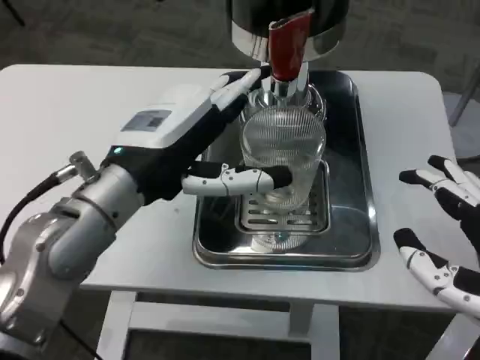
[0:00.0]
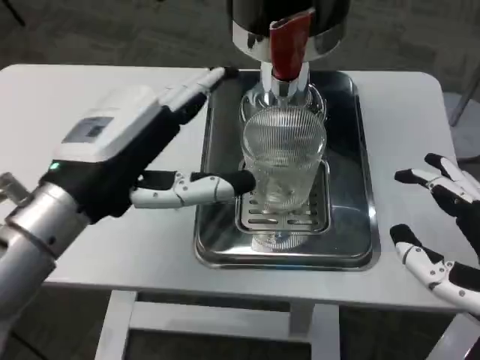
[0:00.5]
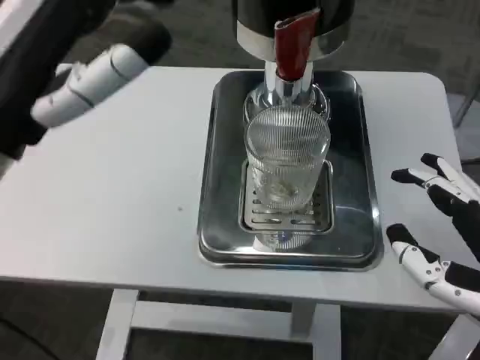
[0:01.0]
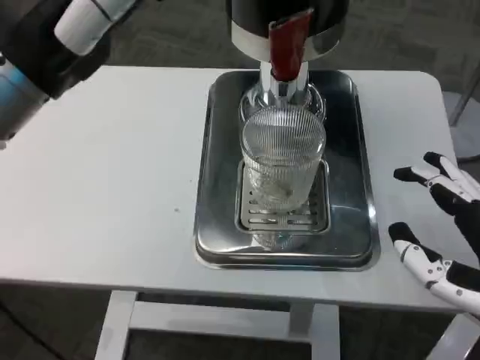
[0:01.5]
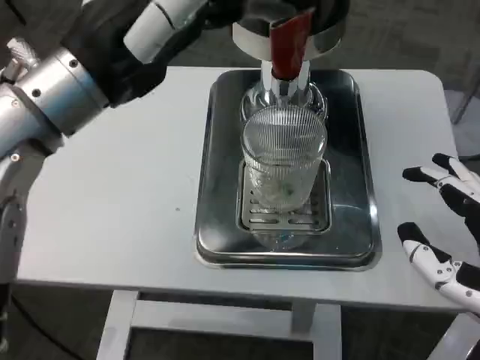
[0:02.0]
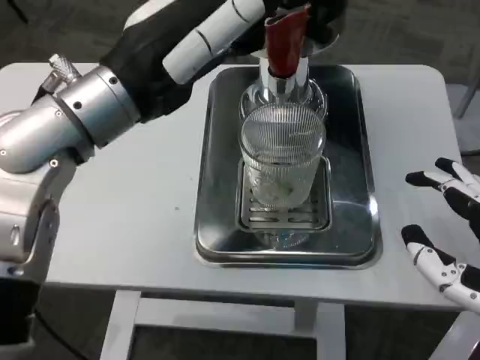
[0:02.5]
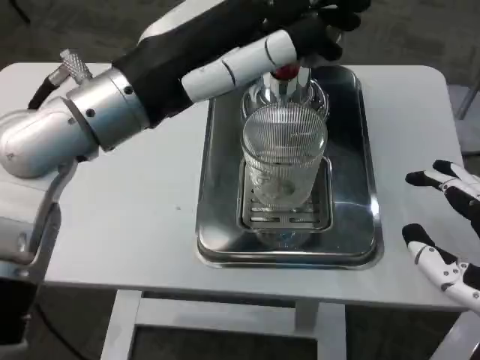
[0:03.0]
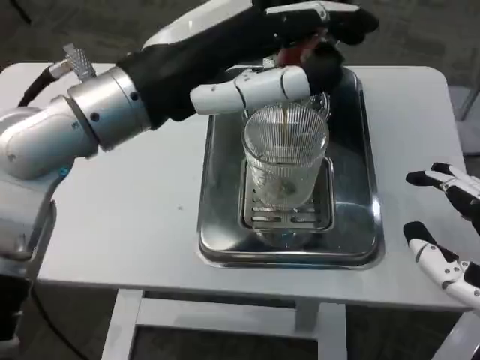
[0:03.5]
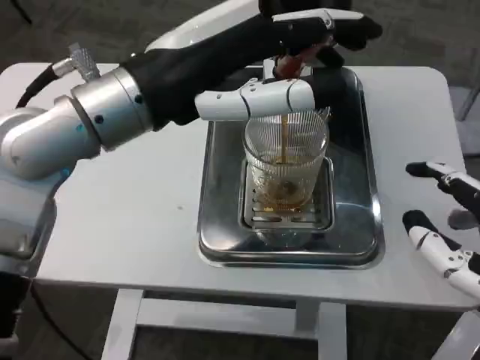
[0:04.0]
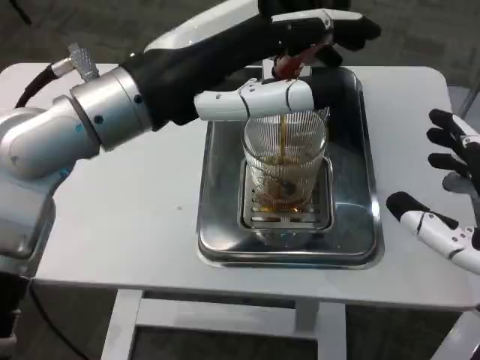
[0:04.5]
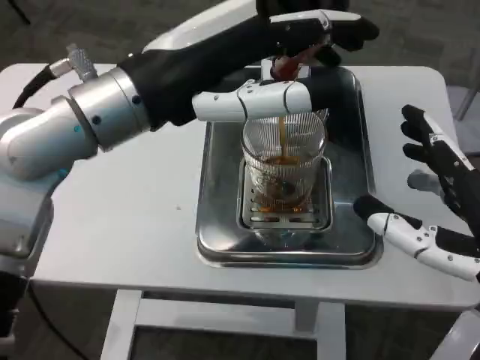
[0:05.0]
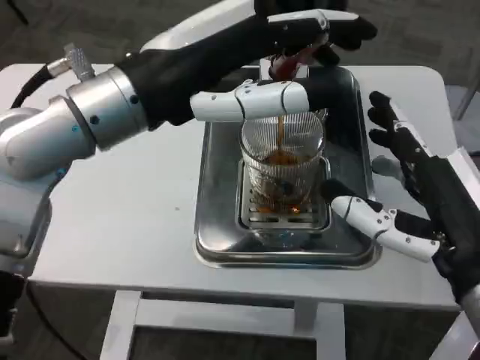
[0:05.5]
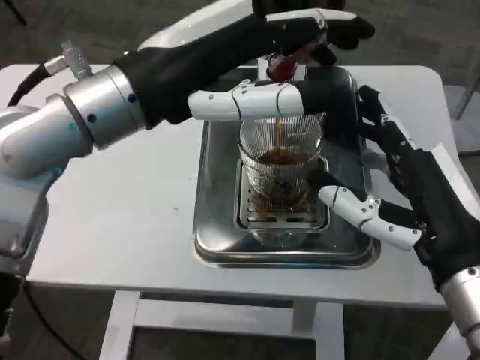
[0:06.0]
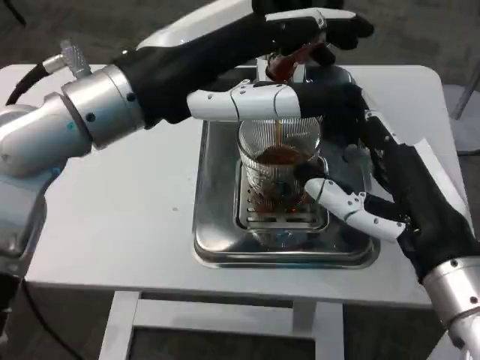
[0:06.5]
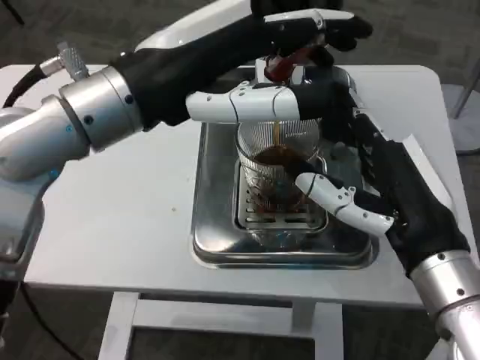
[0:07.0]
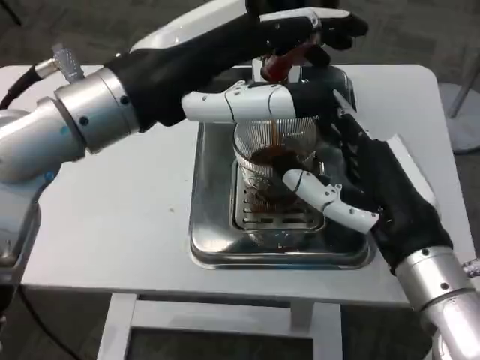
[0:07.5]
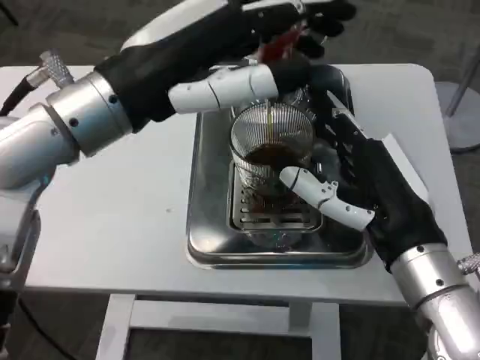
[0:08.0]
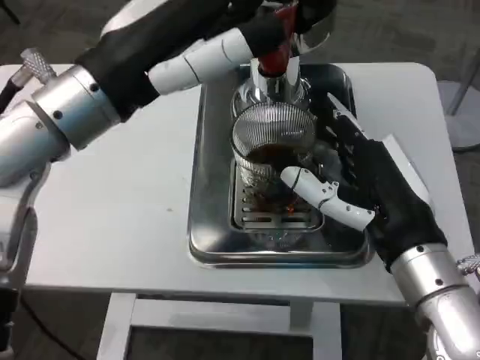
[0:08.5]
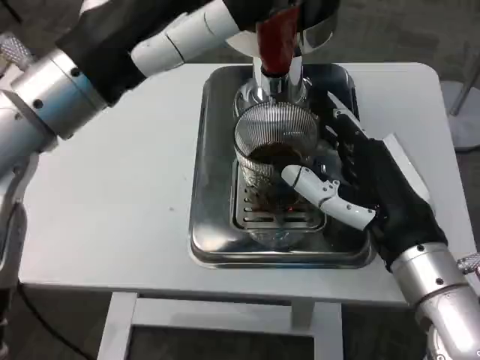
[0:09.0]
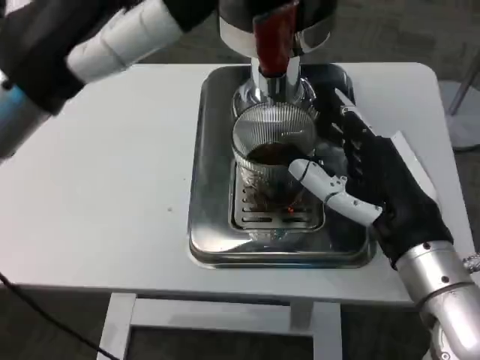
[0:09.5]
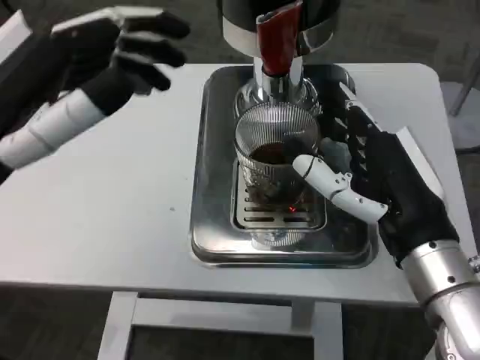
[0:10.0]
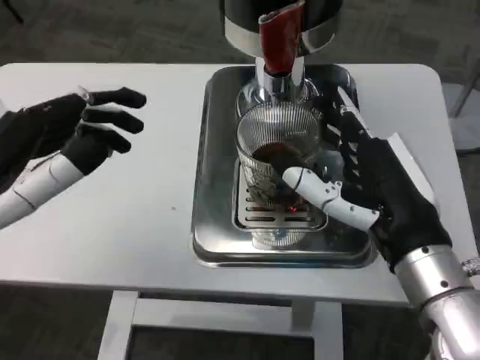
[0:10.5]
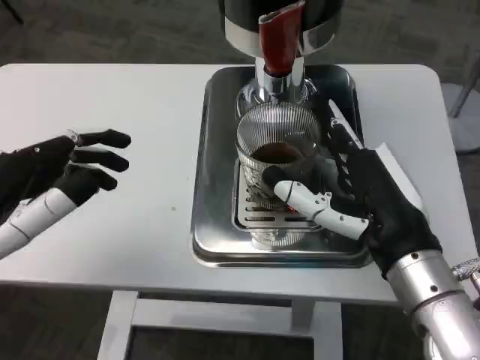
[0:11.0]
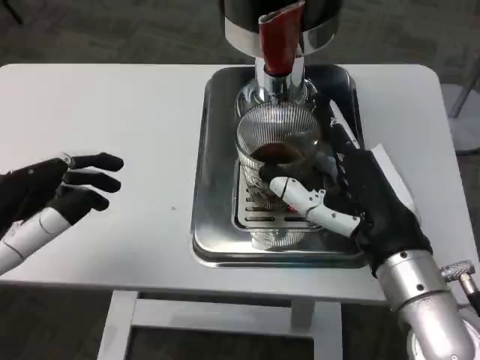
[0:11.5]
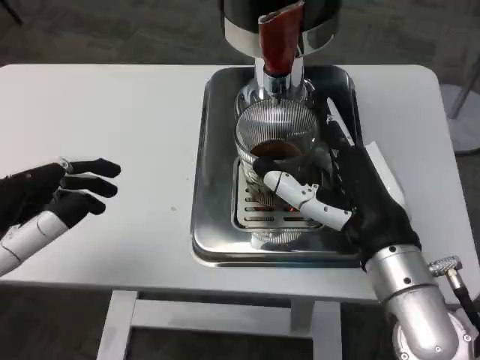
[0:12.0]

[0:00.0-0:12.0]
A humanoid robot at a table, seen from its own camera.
Task of the whole recording: Grasp the cup under the faucet to collect the drink, then remove the cup.
0:00.0 to 0:02.0: The left hand travels upward by roughly 10 cm.
0:04.0 to 0:06.0: The right hand heads forward, covering roughly 5 cm.
0:08.0 to 0:10.0: The left hand goes some 10 cm to the left and backward.
0:10.0 to 0:12.0: The left hand goes some 5 cm downward.

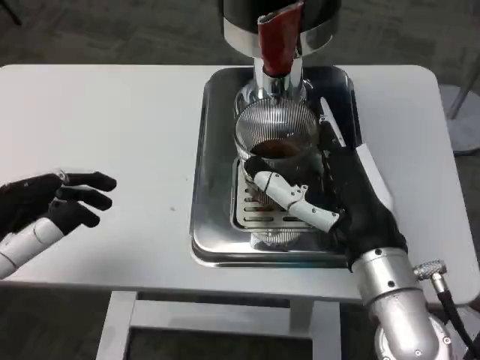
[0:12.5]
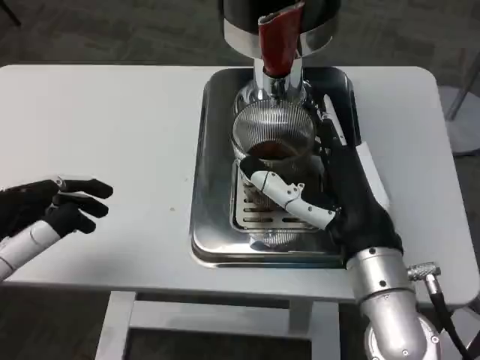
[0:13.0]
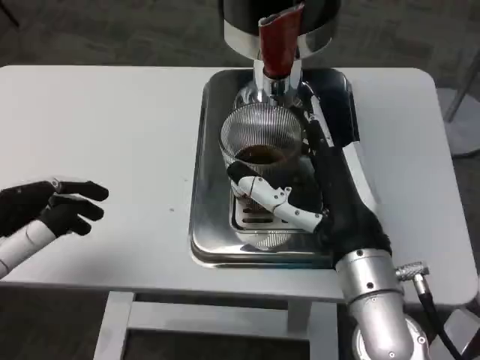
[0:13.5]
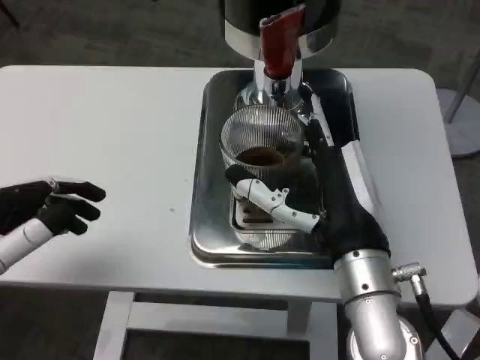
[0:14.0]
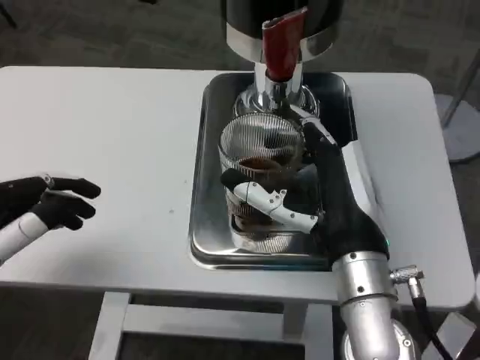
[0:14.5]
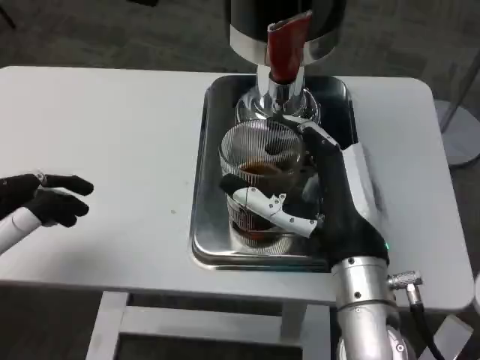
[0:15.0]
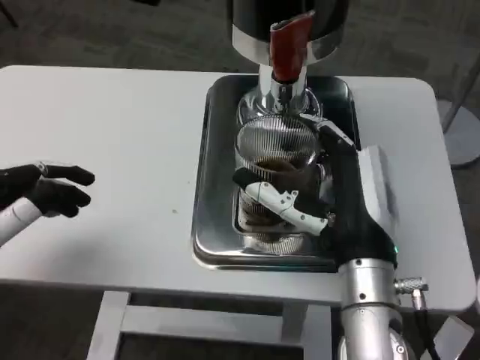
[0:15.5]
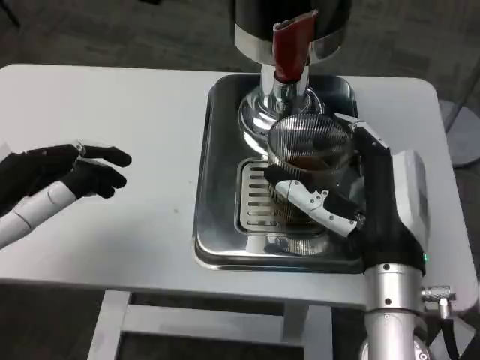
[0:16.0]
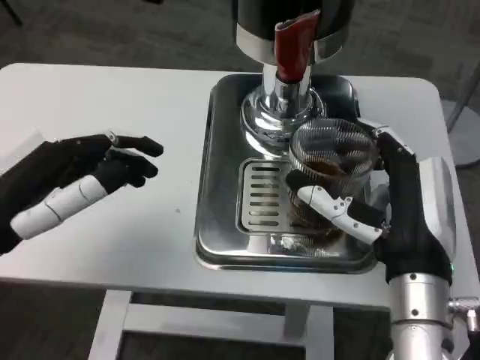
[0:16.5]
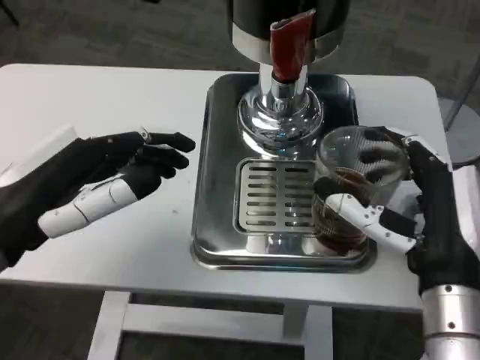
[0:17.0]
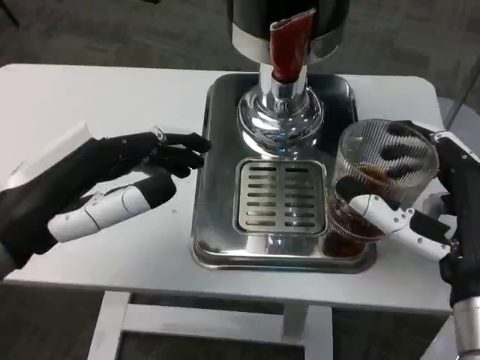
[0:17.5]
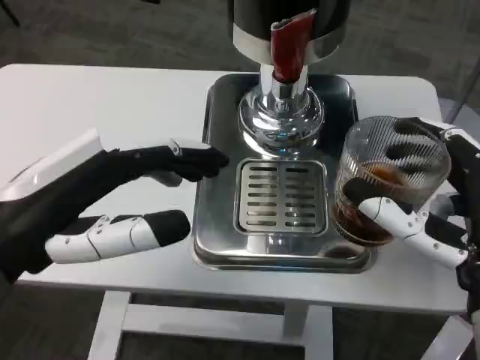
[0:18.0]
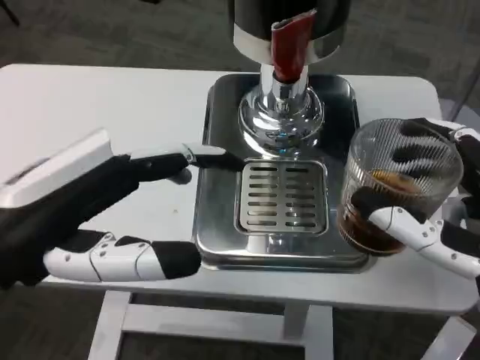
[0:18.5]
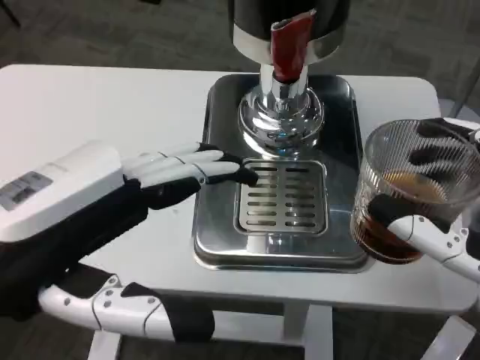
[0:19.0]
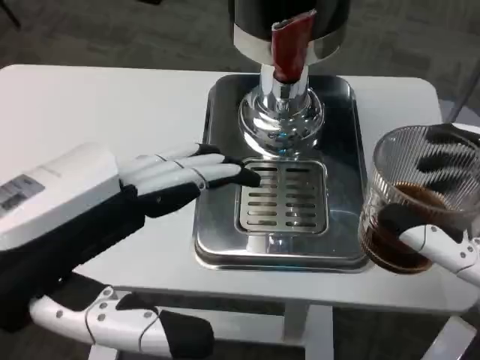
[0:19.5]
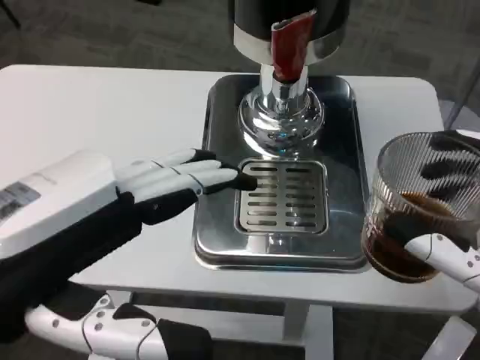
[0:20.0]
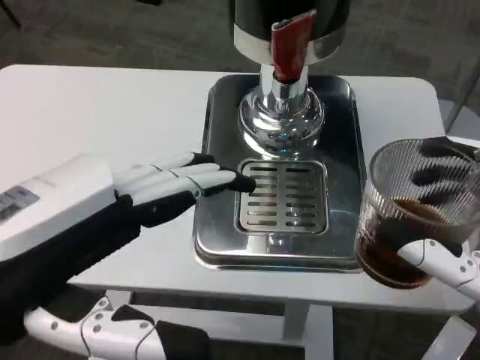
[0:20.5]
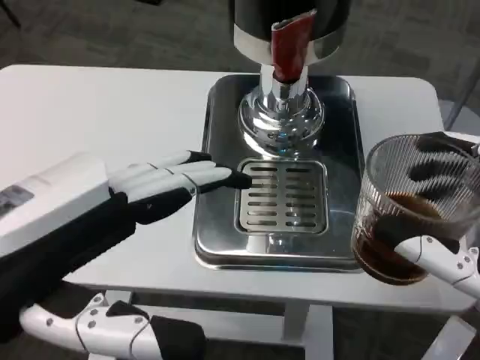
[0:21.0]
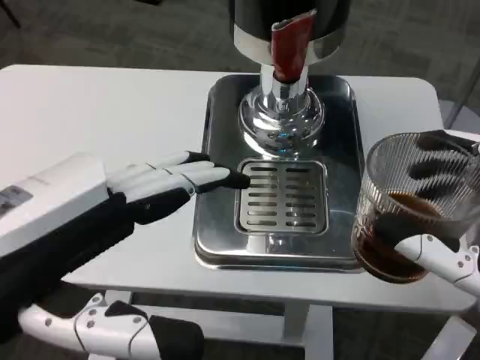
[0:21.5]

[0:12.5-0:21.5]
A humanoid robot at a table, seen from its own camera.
Task of the whole recording: Grasp the cup under the faucet to collect the drink, then remove the cup.
0:14.5 to 0:17.0: The left hand ends up some 5 cm from where it was. The right hand moves to the right, some 5 cm.
0:17.0 to 0:19.5: Both hands move backward, roughly 10 cm.
0:19.5 to 0:21.5: Neither hand changes place.

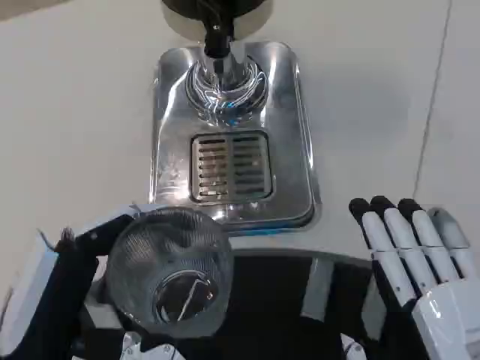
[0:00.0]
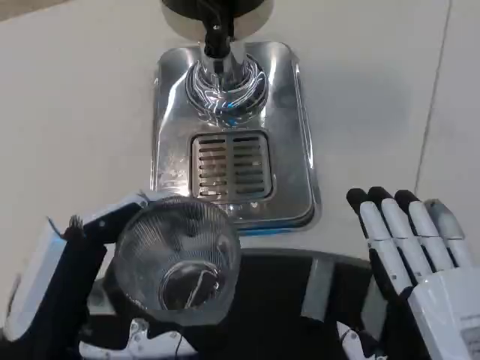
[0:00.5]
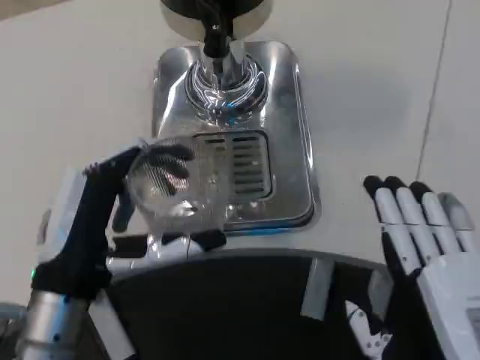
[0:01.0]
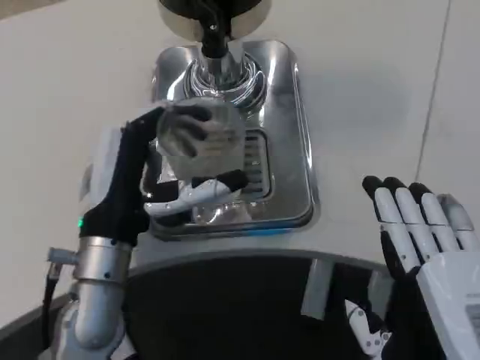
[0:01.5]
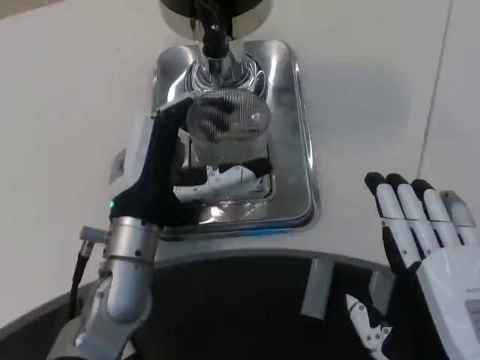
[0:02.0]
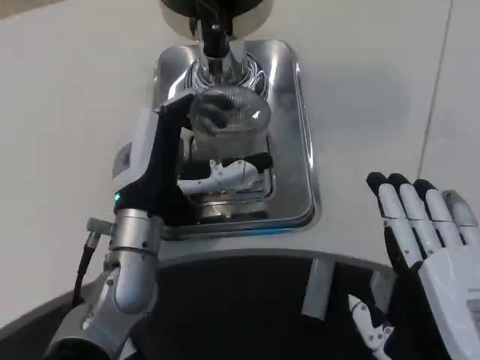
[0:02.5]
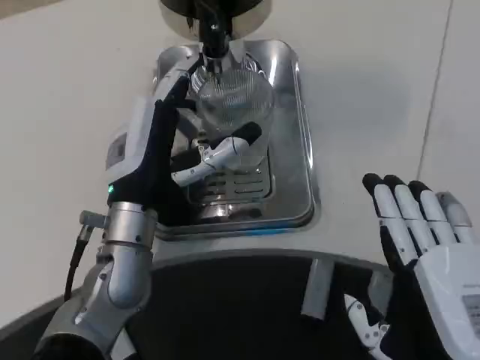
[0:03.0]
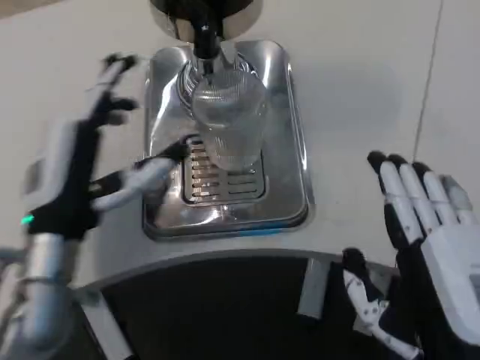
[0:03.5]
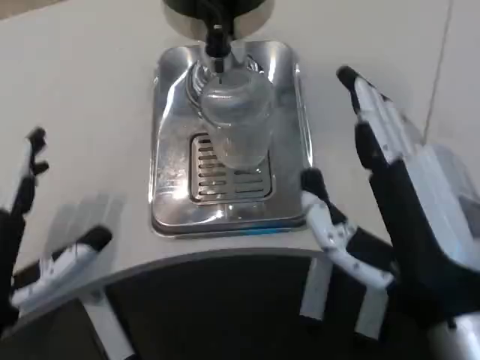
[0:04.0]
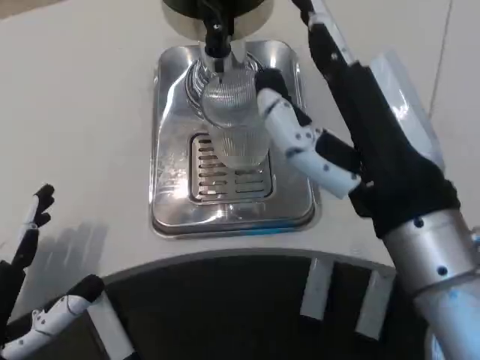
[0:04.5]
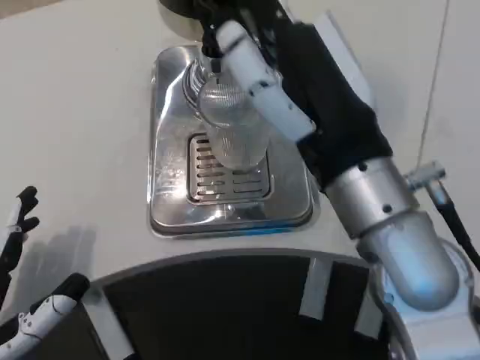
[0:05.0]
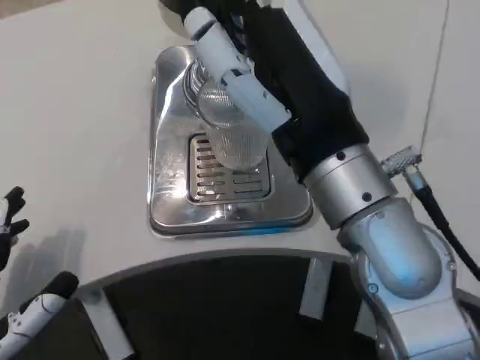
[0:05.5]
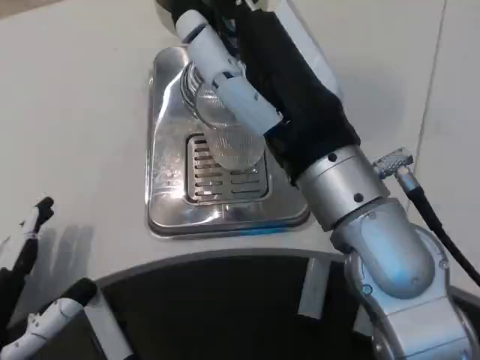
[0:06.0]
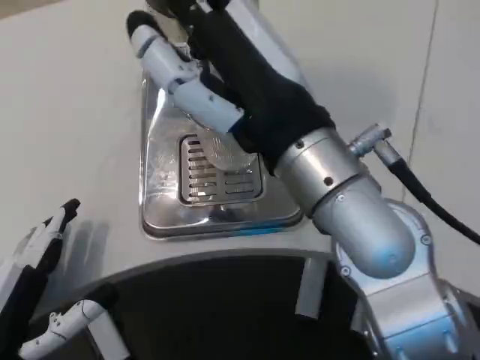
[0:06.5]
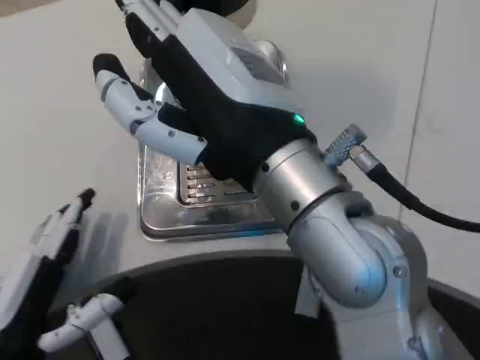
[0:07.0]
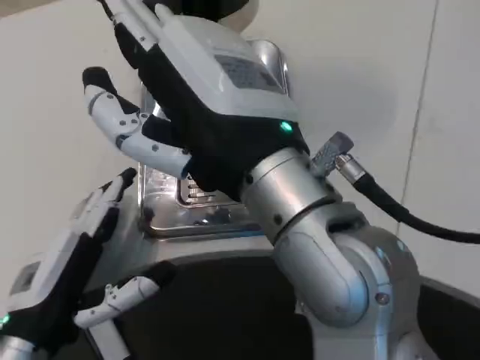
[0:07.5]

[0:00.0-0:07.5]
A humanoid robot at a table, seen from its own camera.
Task of the whole recording: Grasp the cup under the faucet to collect the drink, then remove the cup.
0:00.0 to 0:02.0: The left hand travels forward and to the right by about 15 cm.
0:02.0 to 0:04.0: The left hand goes about 15 cm to the left and backward. The right hand moves upward, approximately 5 cm.
0:04.0 to 0:05.5: The right hand heads forward, upward and to the left, covering about 10 cm.
0:05.5 to 0:07.5: The right hand ends up some 5 cm from where it was. The left hand is displaced forward by approximately 5 cm.
